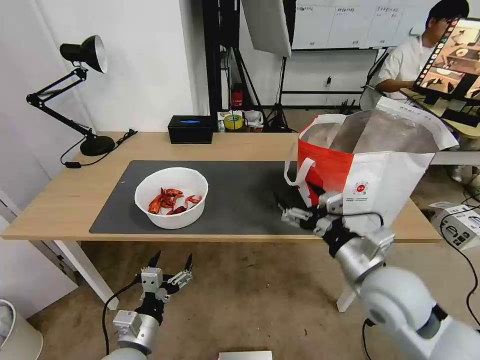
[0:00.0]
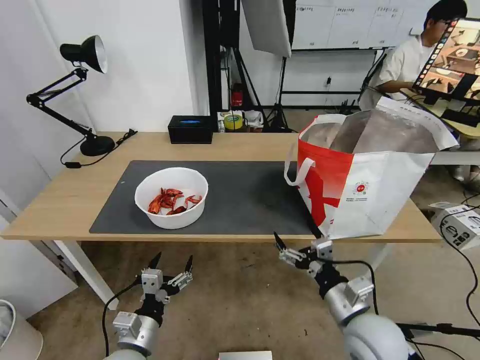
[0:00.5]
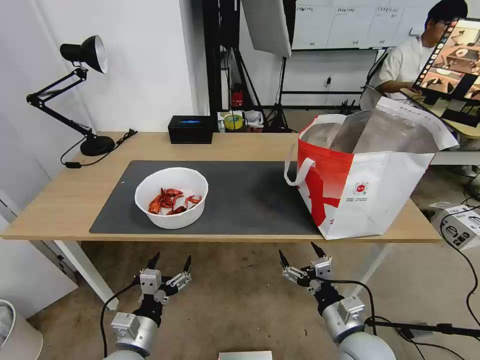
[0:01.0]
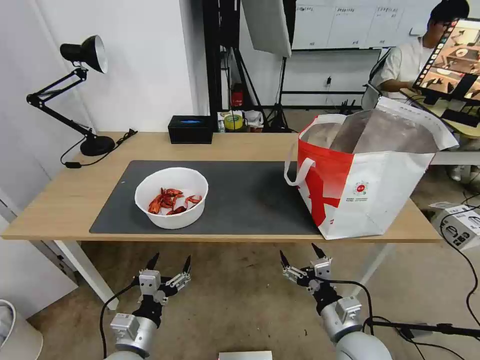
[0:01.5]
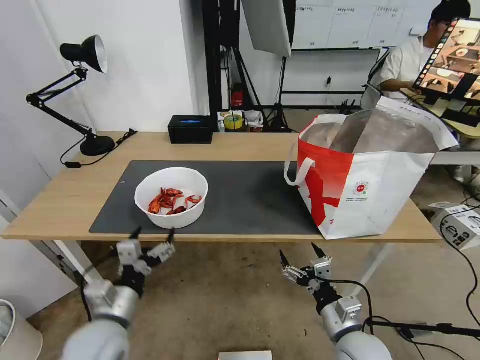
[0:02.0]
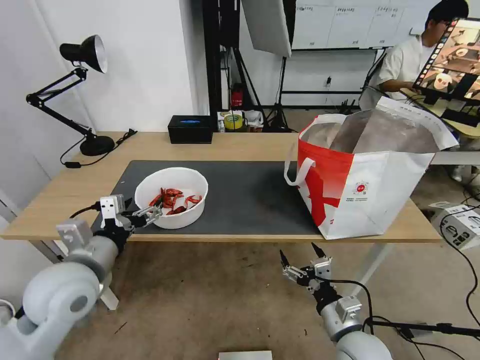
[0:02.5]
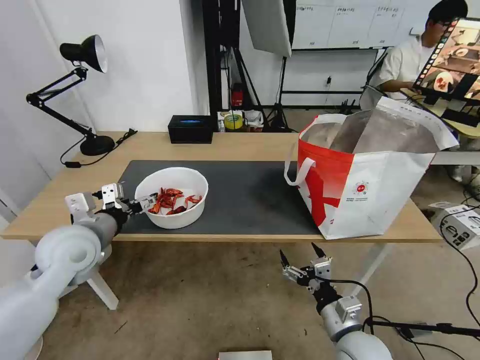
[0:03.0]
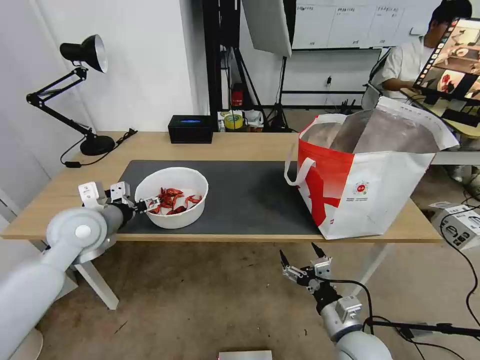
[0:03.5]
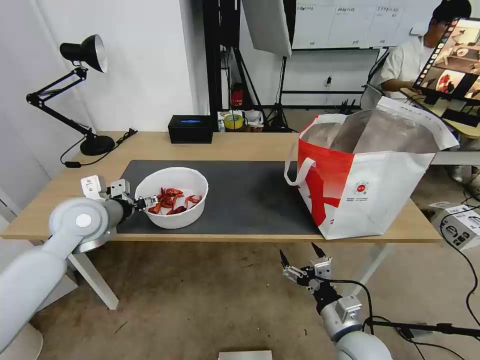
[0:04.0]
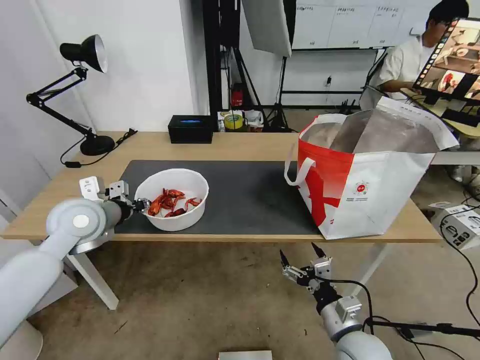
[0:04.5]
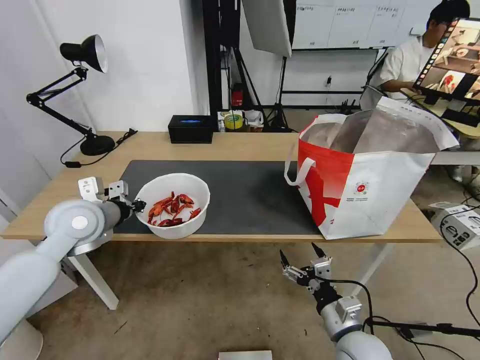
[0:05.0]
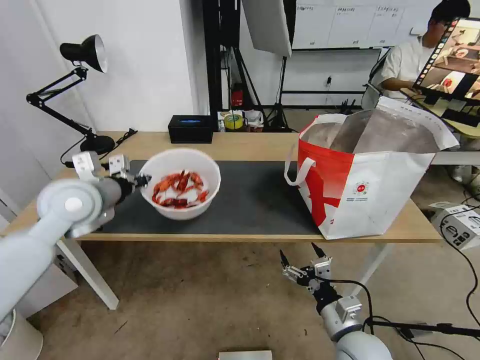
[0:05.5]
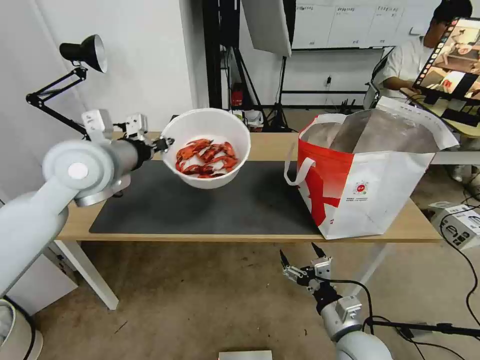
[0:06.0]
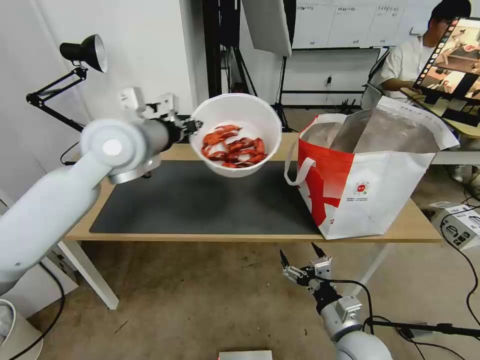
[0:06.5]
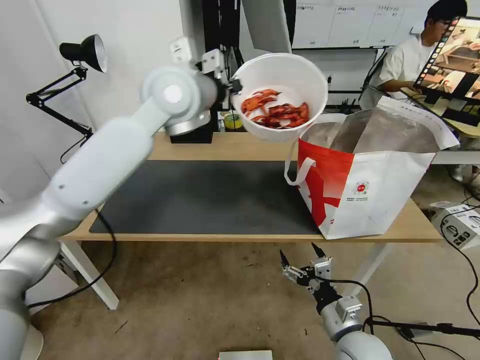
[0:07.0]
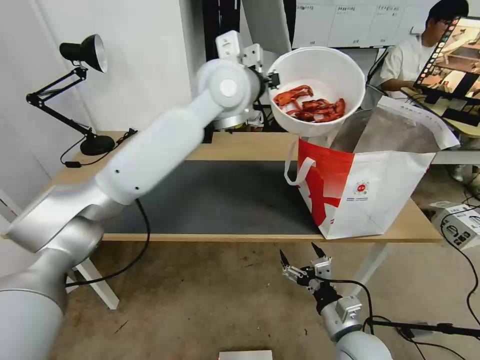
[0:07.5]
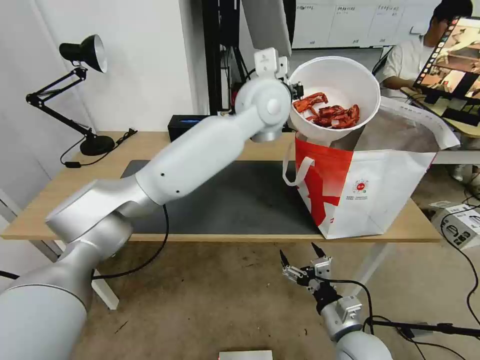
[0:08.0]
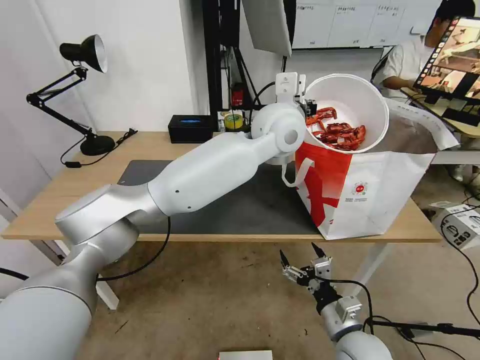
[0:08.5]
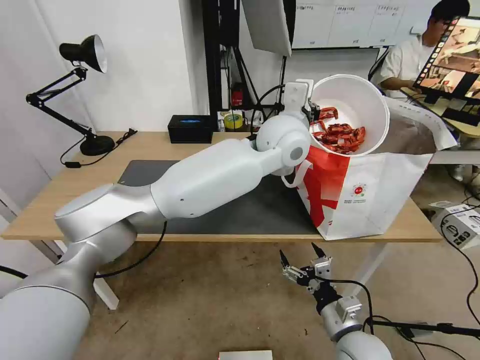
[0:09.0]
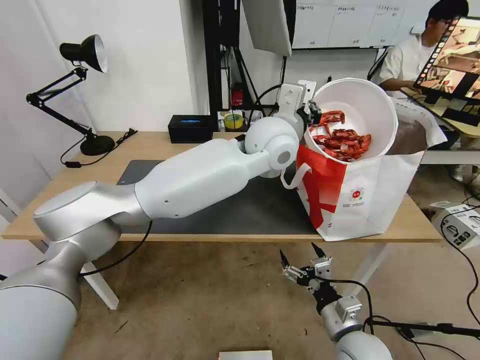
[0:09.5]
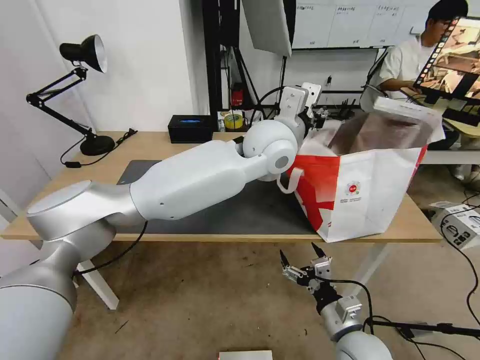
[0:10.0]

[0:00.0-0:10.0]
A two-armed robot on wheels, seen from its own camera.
Task of the whole recording: Pick up the trash from the table and place it into the takeout bag.
0:00.0 to 0:02.0: The left gripper heads upward, covering approximately 10 cm. Meanwhile the right gripper moves downward and backward, roughly 15 cm.
0:02.0 to 0:04.0: The left gripper is displaced forward and upward by some 20 cm.
0:04.0 to 0:06.0: The left gripper goes approximately 15 cm upward and to the right, and closes.
0:06.0 to 0:08.0: The left gripper travels to the right by roughly 30 cm.
0:08.0 to 0:10.0: The left gripper travels downward by about 5 cm, and opens up.

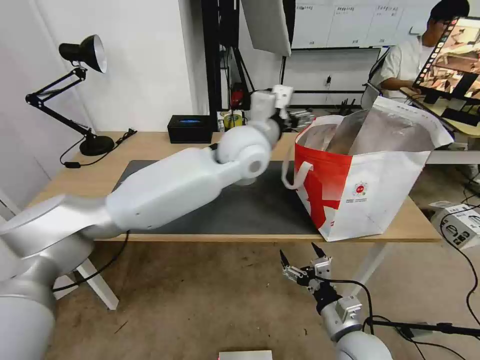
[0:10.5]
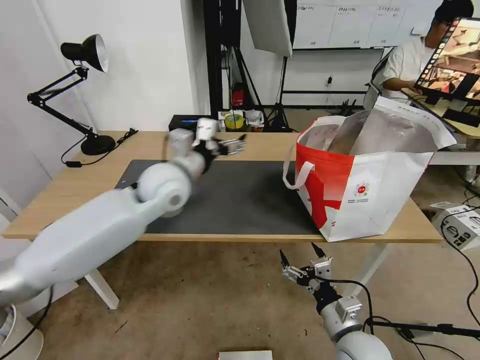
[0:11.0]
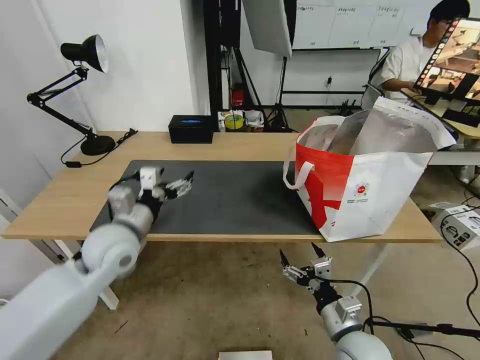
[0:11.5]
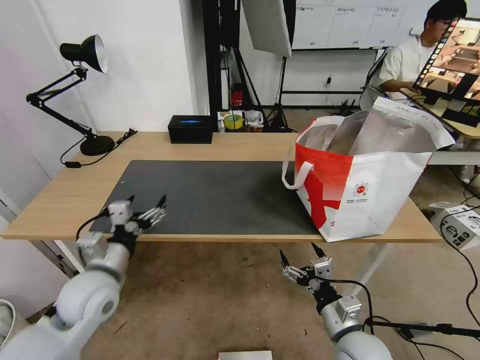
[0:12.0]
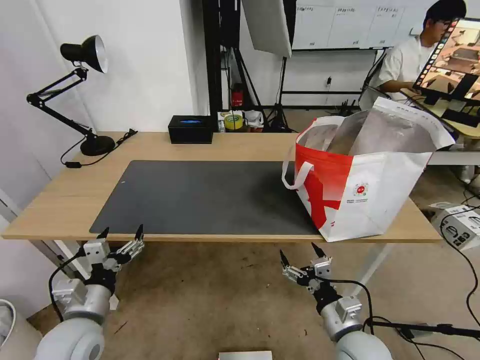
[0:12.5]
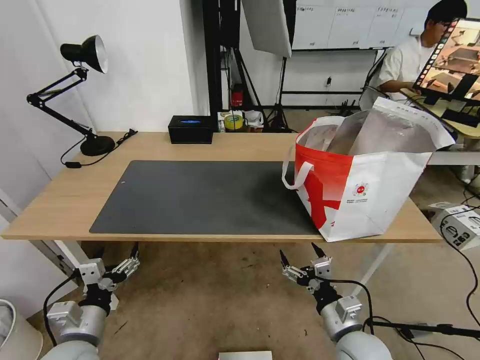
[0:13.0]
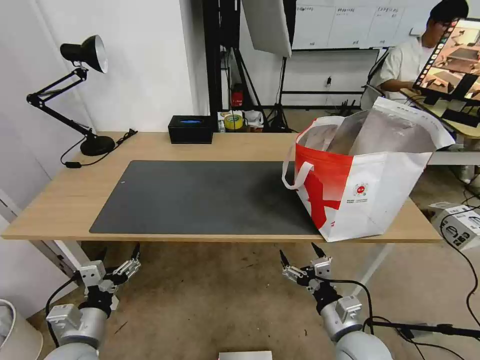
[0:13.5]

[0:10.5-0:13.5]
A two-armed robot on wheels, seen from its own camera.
Task of the whole recording: Pick up the trash from the table and place it into the takeout bag.
0:10.5 to 0:12.0: The left gripper heads to the left, downward and backward, covering about 40 cm.
0:12.0 to 0:13.5: The left gripper shifts some 15 cm backward and downward.

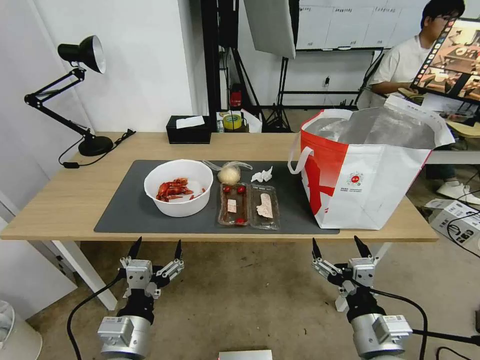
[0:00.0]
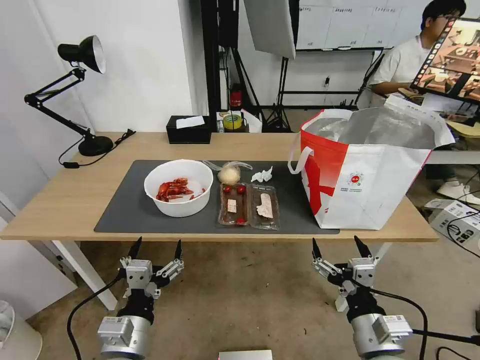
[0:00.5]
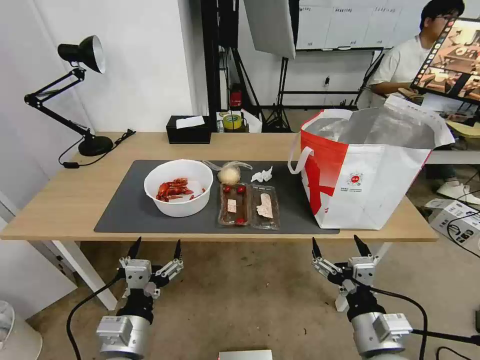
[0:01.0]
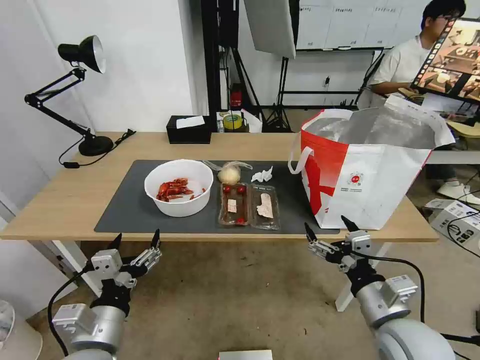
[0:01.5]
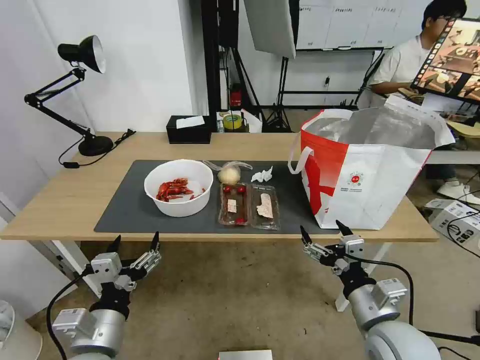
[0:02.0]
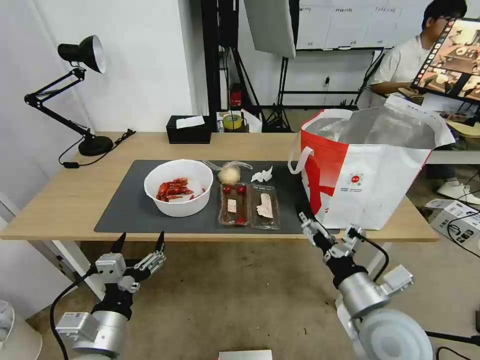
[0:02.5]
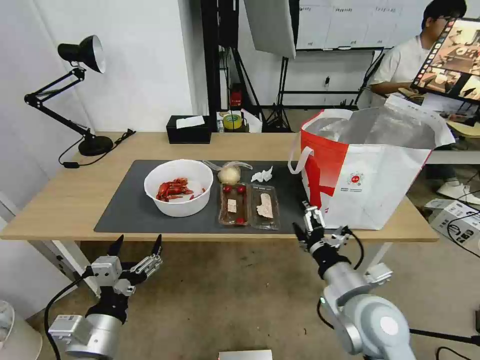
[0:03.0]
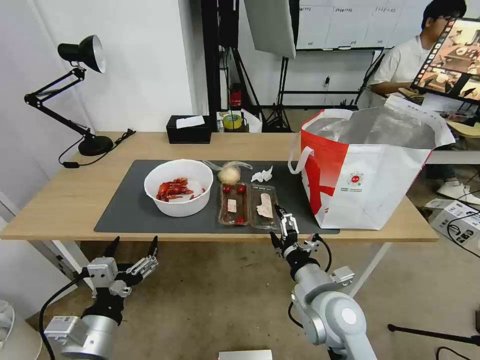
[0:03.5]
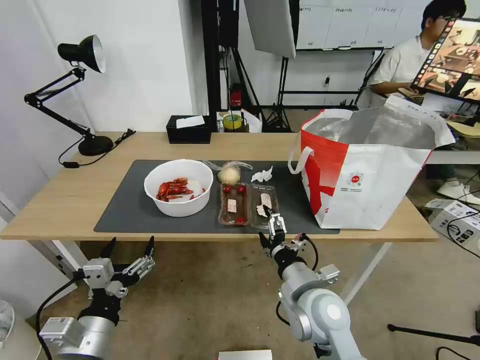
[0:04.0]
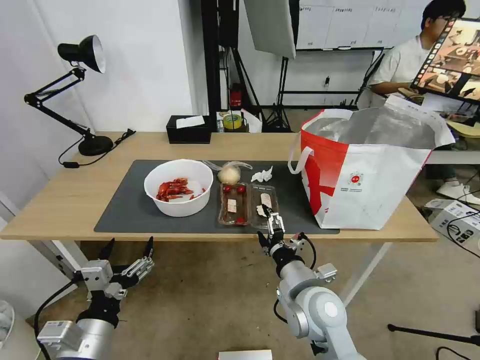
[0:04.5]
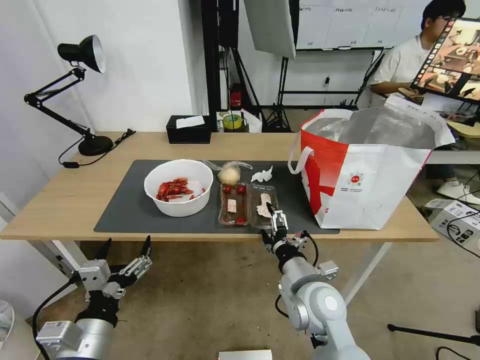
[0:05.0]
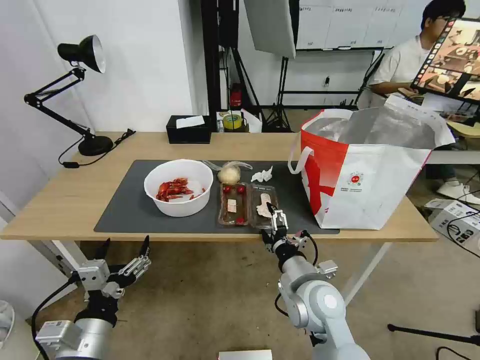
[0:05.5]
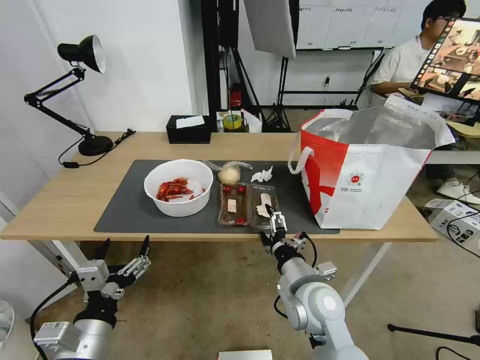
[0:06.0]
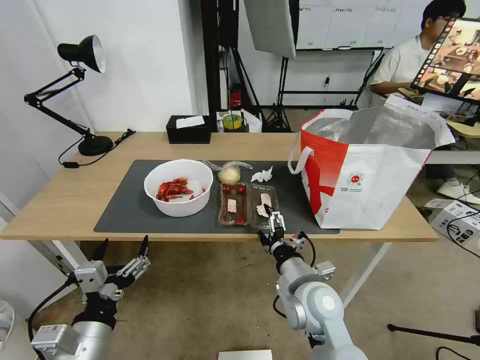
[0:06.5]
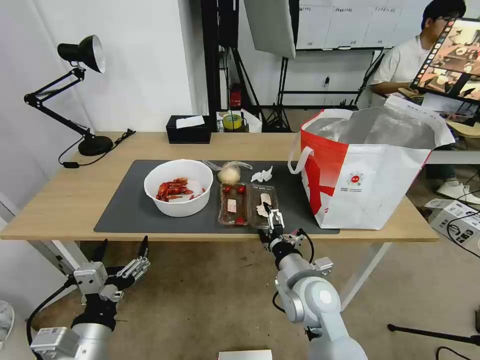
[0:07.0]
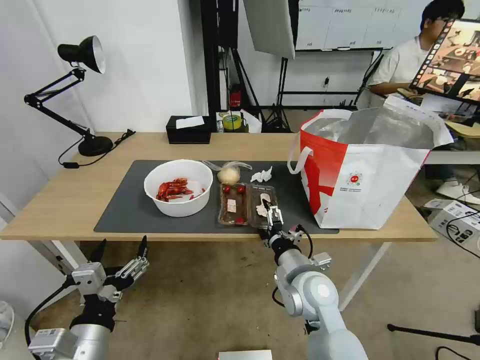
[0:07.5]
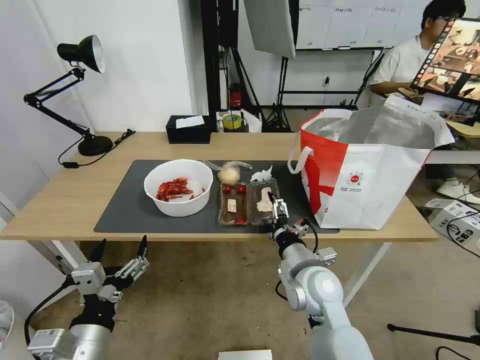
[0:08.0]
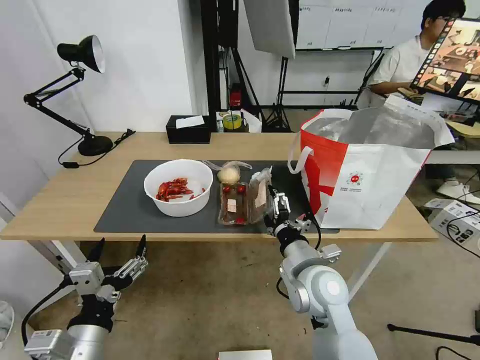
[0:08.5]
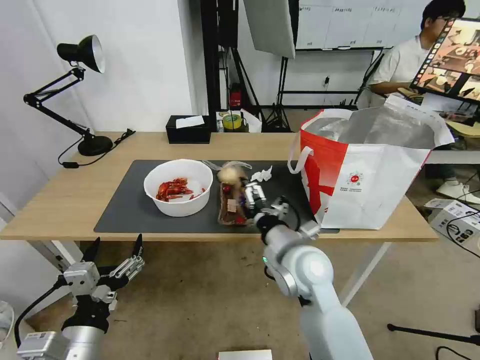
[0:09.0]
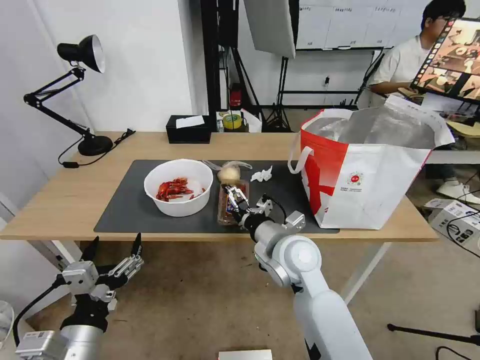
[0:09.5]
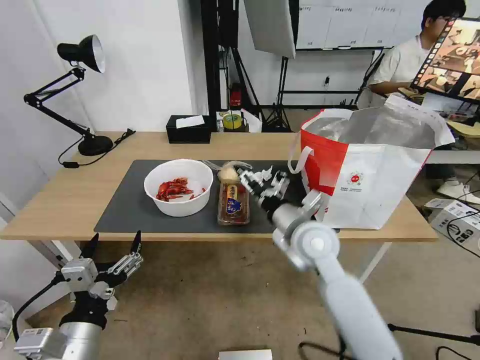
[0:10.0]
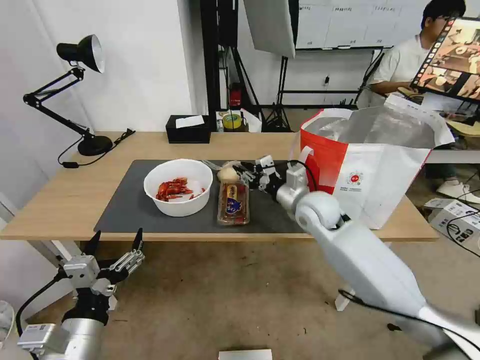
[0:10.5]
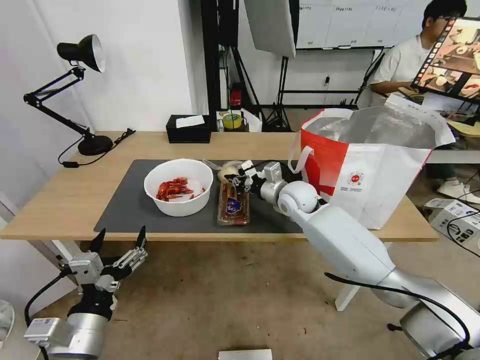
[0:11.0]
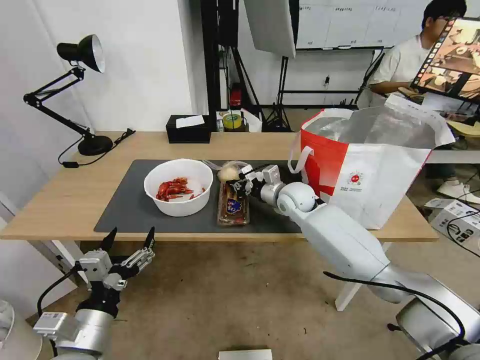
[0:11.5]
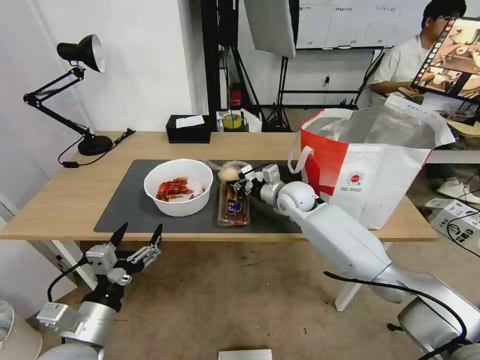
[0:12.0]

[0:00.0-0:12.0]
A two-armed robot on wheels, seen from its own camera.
Task of the whole recording: Pick up the trash from the table and place it into the takeout bag.
0:02.0 to 0:04.0: The right gripper shifts roughly 15 cm to the left and forward.
0:04.0 to 0:08.0: The grippers make only small movements.
0:08.0 to 0:10.0: The right gripper travels forward and upward by roughly 10 cm.
0:10.0 to 0:12.0: The right gripper shifts approximately 15 cm forward, and closes up.
